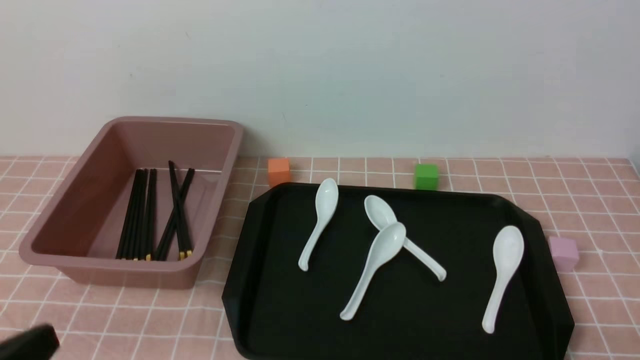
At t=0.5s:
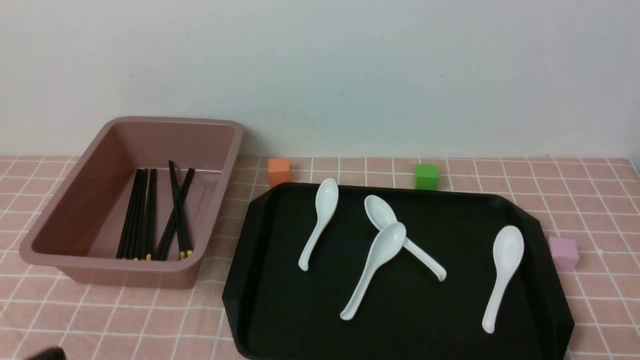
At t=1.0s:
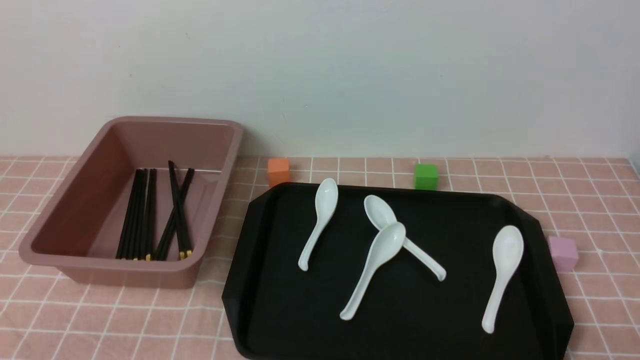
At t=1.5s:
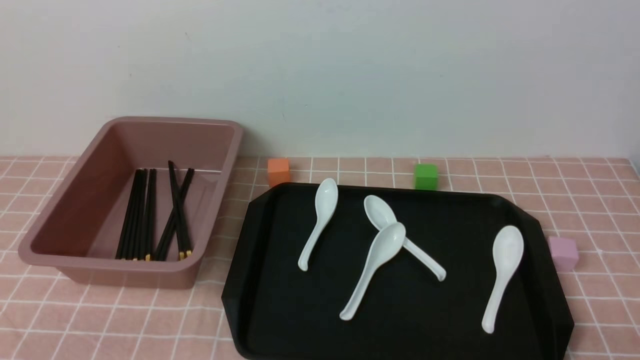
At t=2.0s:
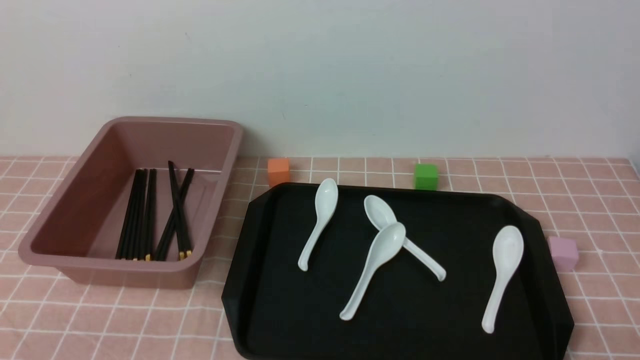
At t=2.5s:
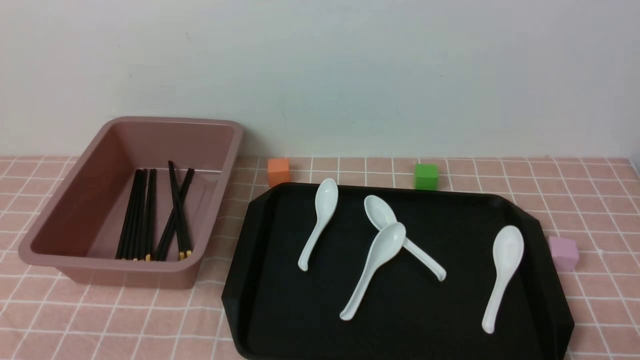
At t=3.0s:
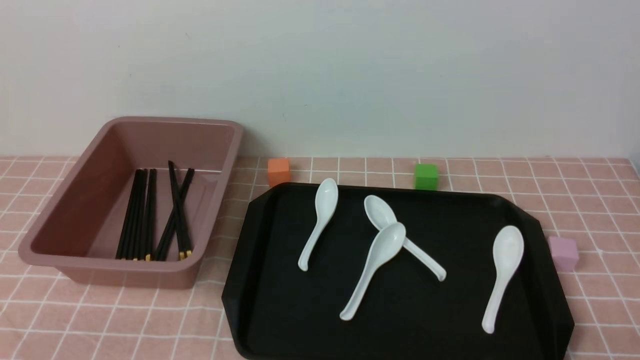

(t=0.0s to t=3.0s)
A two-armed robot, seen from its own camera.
t=0.0s - t=1.5s: The left gripper travels downward by some 10 cm.
t=1.5s - t=3.0s: Neither gripper changes place.

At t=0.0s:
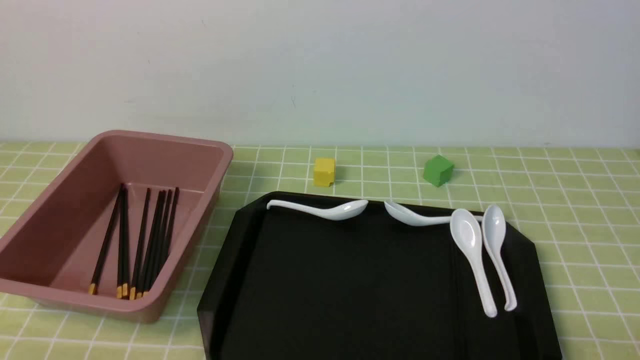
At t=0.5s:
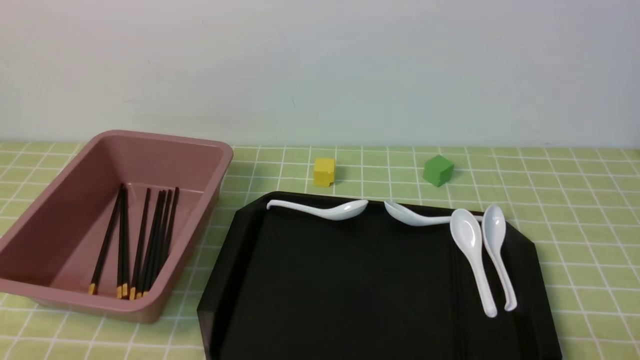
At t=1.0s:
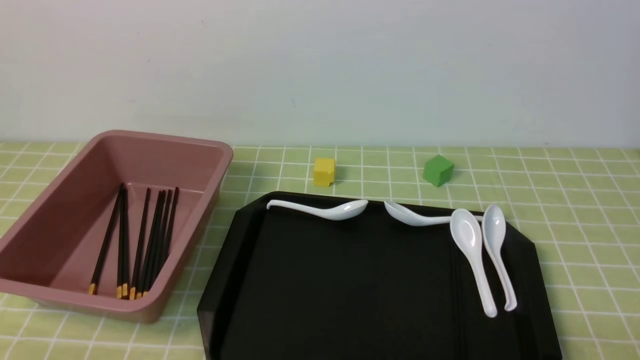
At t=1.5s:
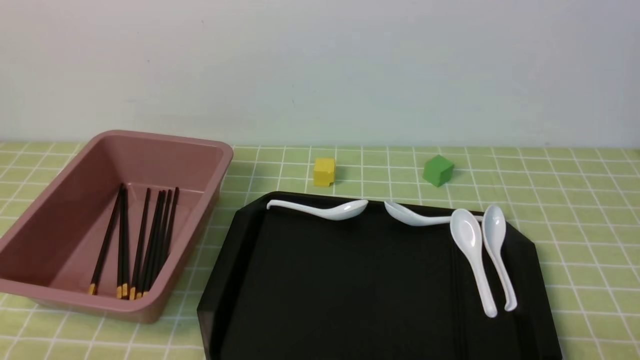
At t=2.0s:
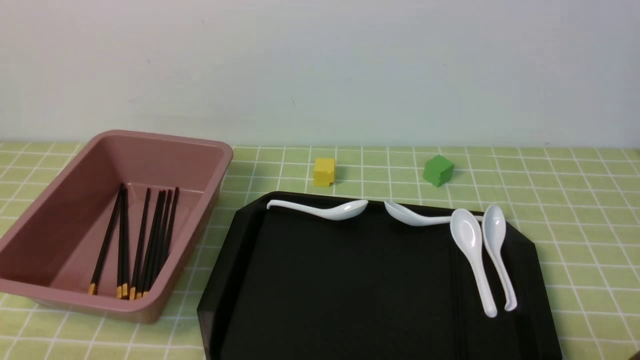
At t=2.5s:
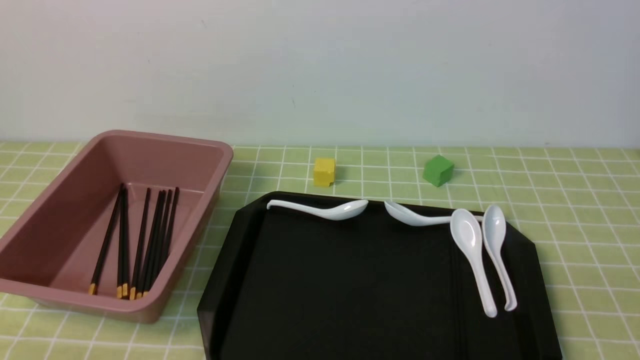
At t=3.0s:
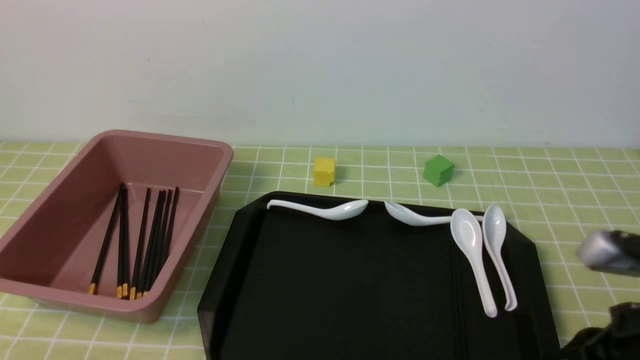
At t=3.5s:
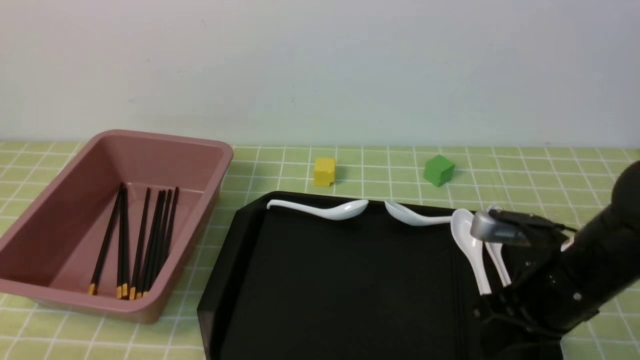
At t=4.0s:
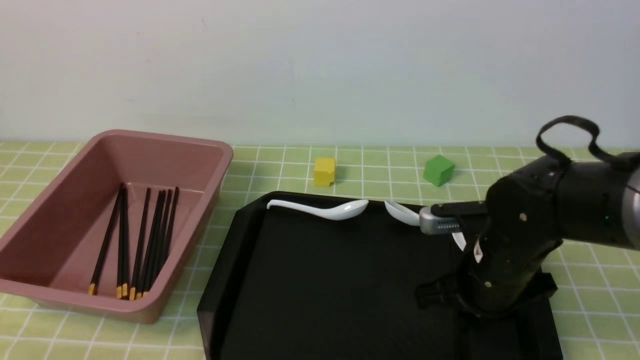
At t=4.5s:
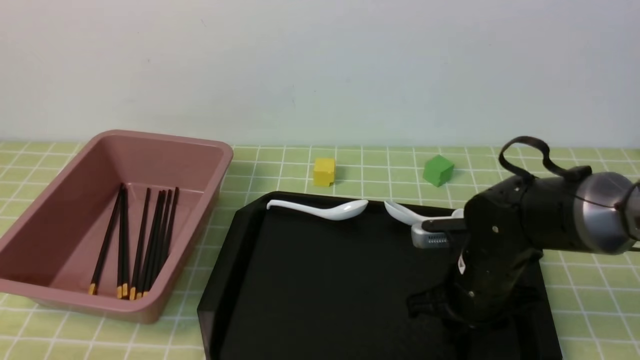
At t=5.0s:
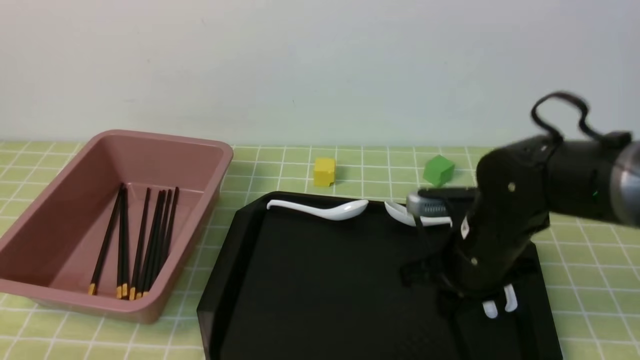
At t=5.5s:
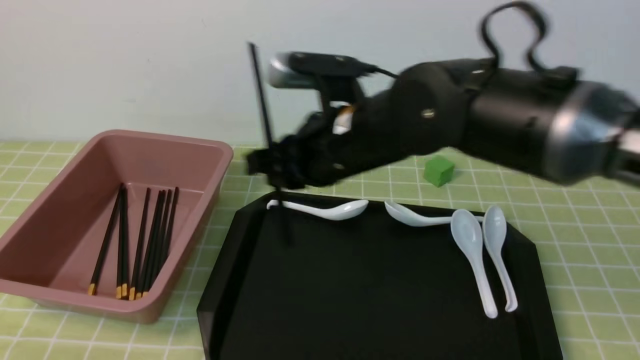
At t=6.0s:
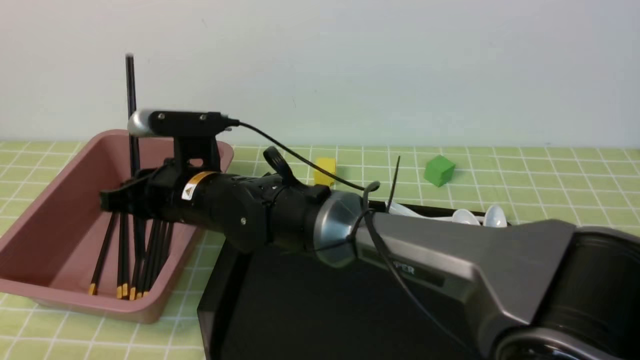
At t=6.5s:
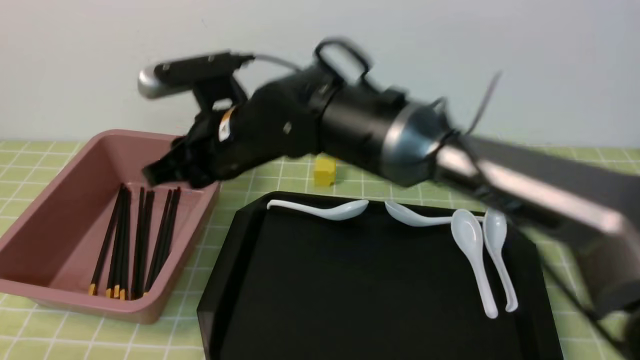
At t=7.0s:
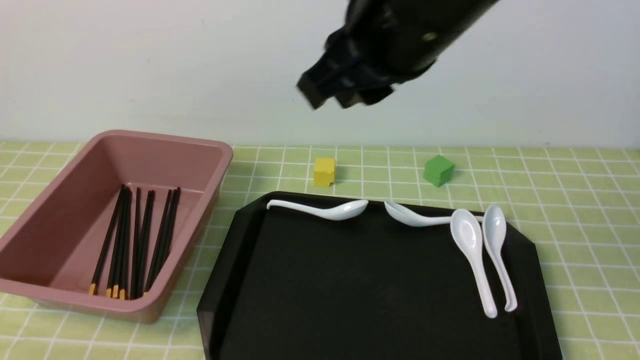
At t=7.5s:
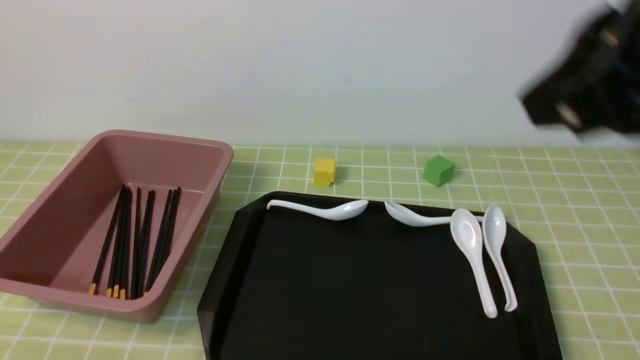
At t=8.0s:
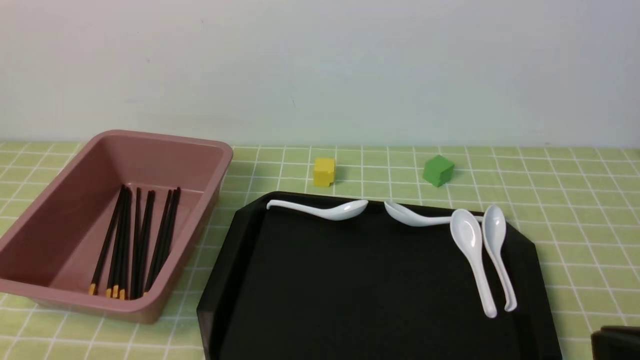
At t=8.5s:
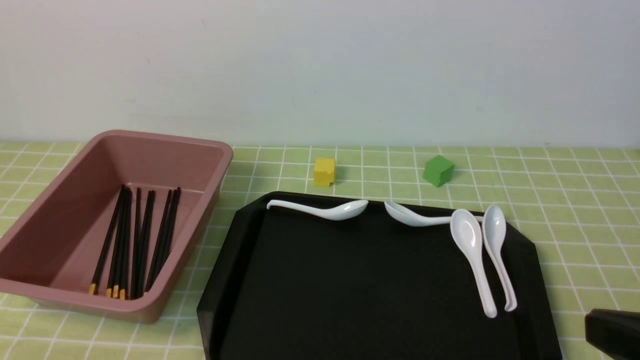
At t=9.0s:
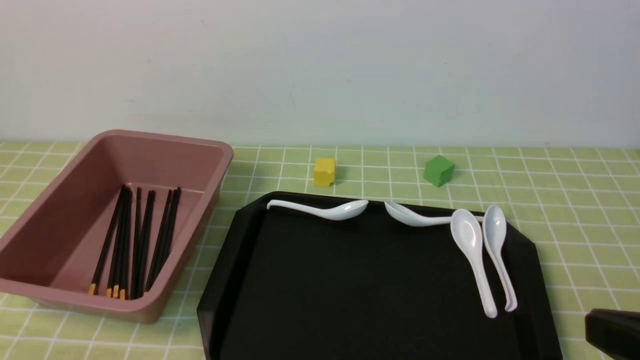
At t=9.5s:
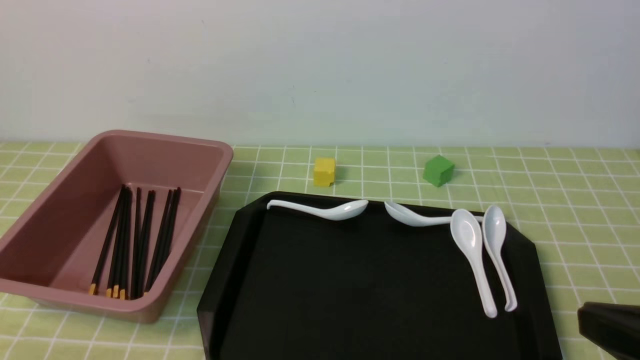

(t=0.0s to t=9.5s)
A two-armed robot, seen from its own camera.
Step, t=0.0s - t=5.0s: use the right arm to grab a pair of chopsticks.
Step, t=5.5s - t=6.0s: use the right arm to put the chopsticks into the lunch box.
t=2.0s - t=4.0s: The right gripper moves forward and to the left, some 25 cm, and closes its fingers.
t=4.0s - t=5.5s: The right gripper is displaced to the left and upward by about 20 cm.
t=5.5s - t=7.5s: The right gripper heads backward, upward and to the right, covering approximately 30 cm.
t=7.5s - t=9.5s: The right gripper travels downward and to the right by some 15 cm, and closes its fingers.

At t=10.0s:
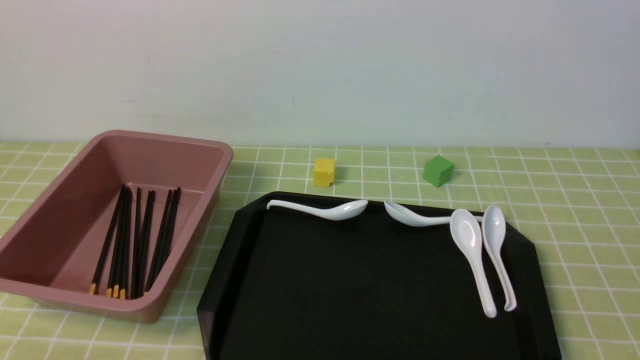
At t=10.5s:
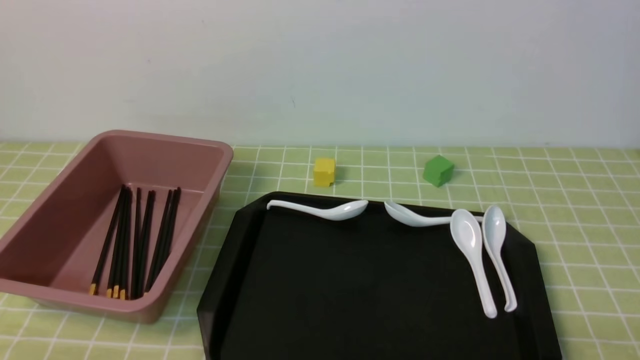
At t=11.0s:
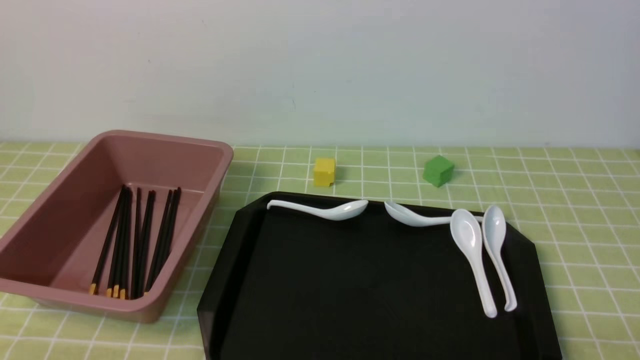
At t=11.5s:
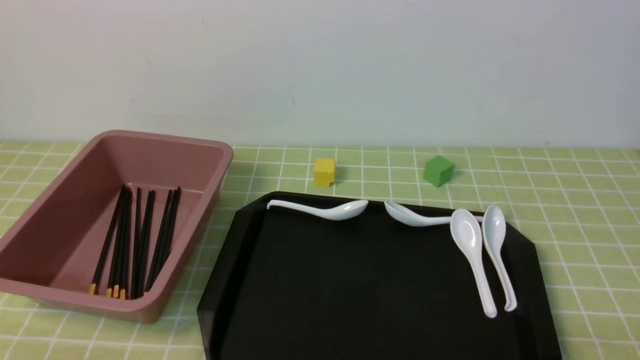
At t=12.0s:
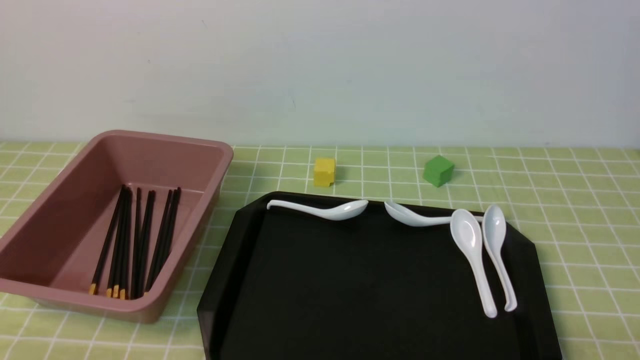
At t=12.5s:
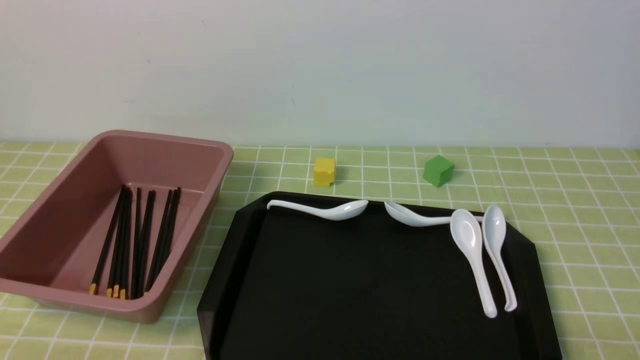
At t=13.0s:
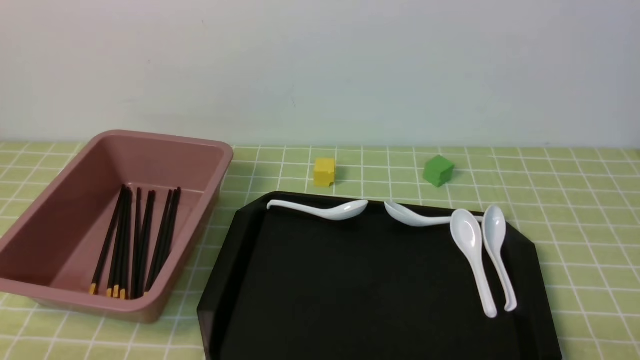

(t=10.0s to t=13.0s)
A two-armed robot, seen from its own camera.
t=11.5s - t=13.0s: Both grippers stay put.
